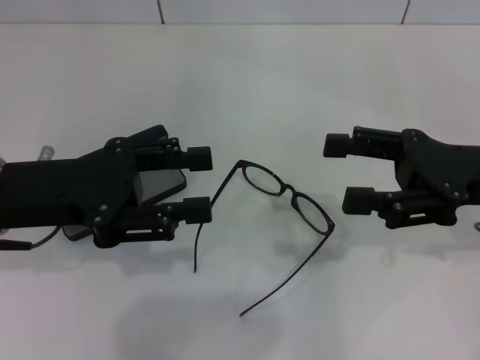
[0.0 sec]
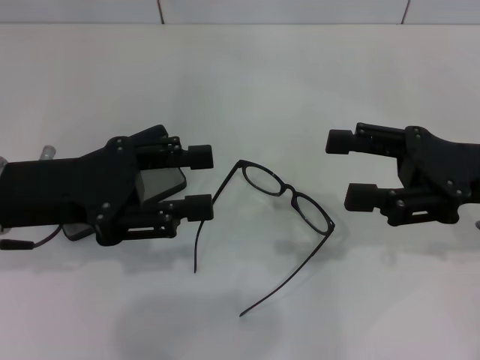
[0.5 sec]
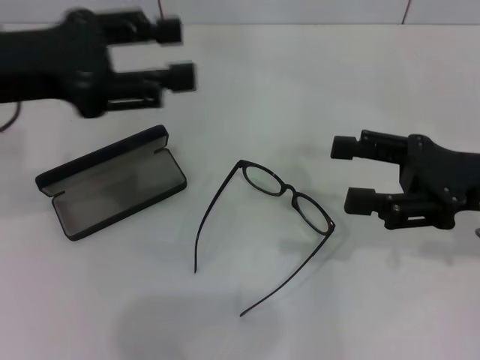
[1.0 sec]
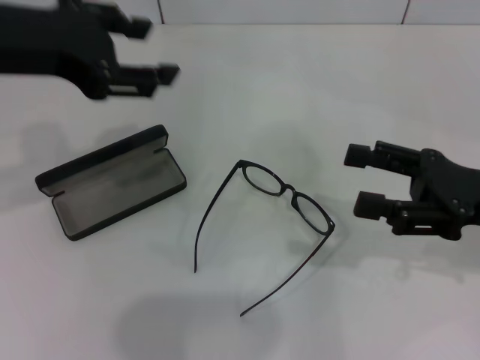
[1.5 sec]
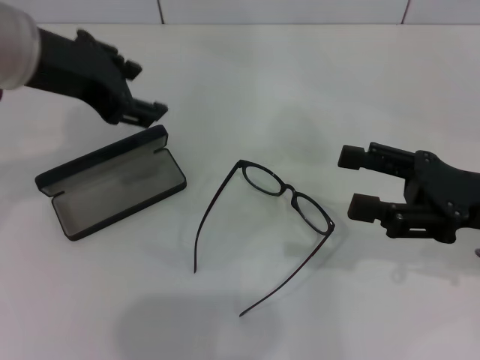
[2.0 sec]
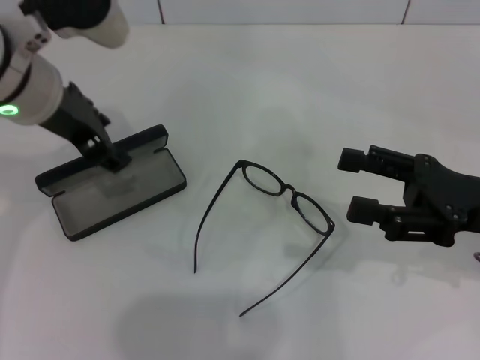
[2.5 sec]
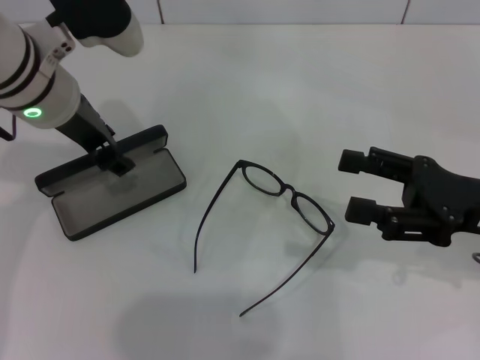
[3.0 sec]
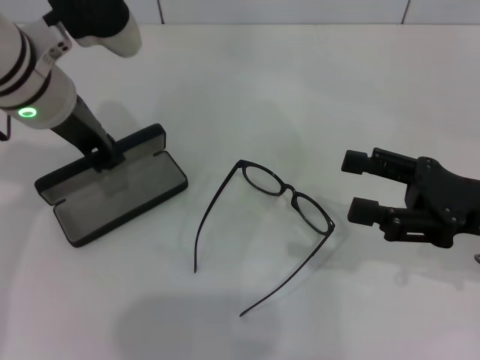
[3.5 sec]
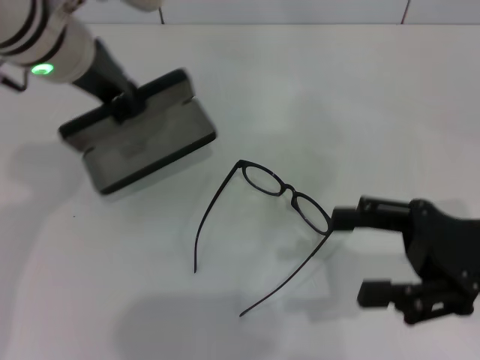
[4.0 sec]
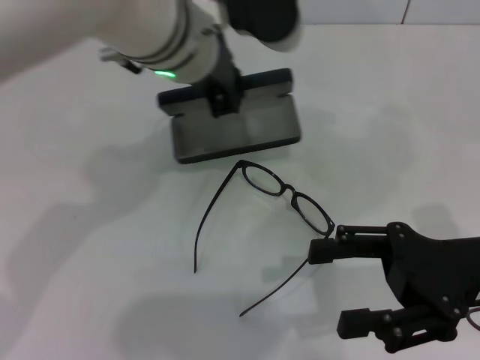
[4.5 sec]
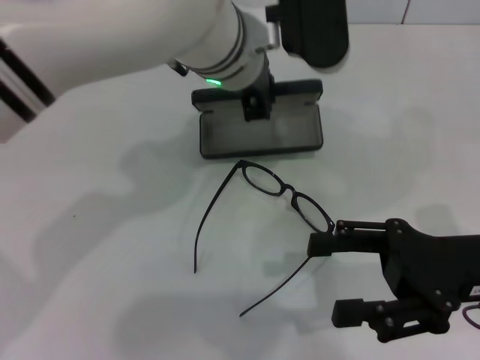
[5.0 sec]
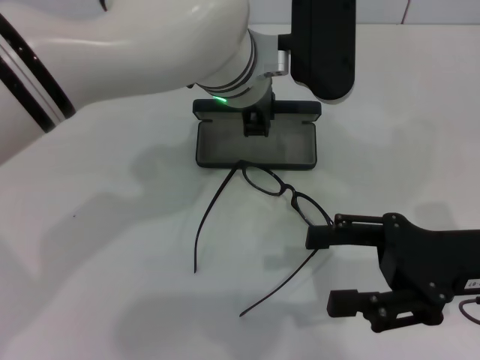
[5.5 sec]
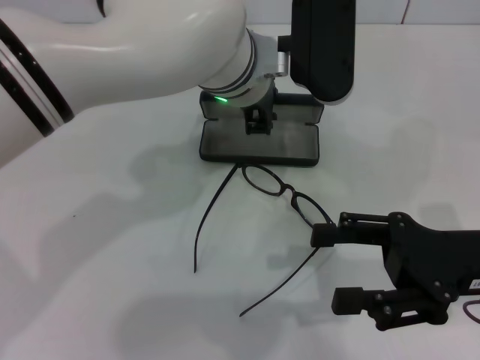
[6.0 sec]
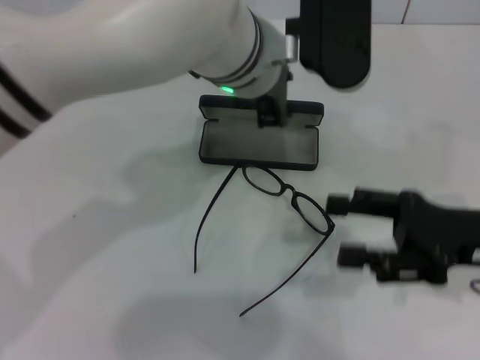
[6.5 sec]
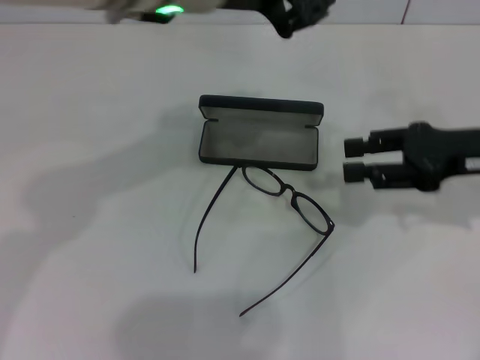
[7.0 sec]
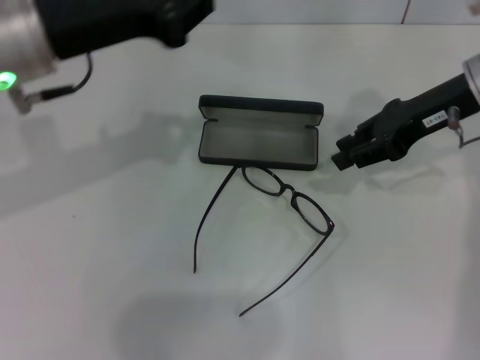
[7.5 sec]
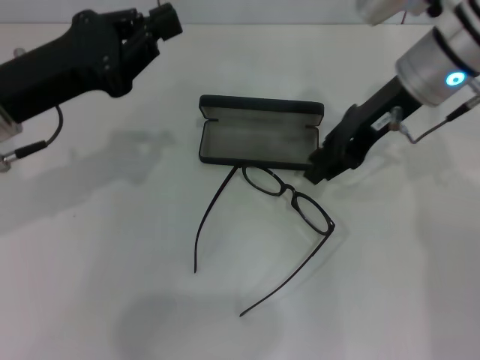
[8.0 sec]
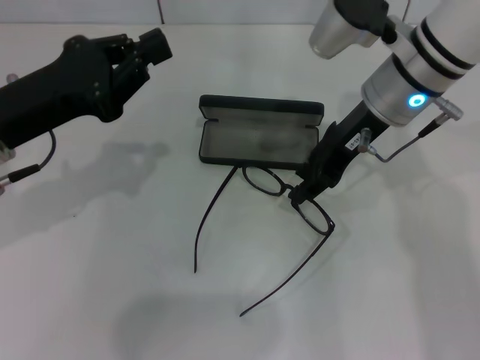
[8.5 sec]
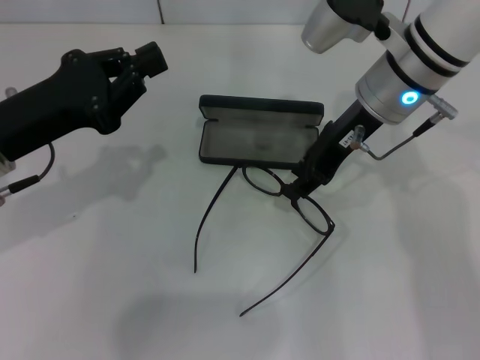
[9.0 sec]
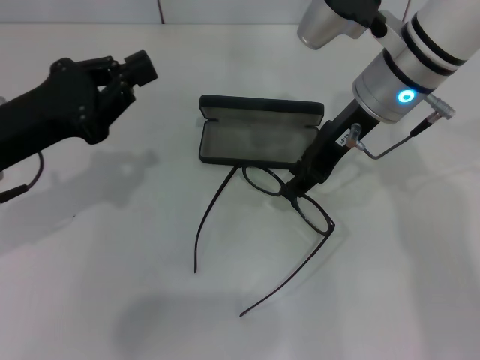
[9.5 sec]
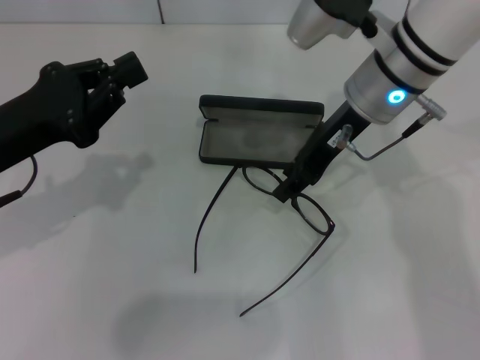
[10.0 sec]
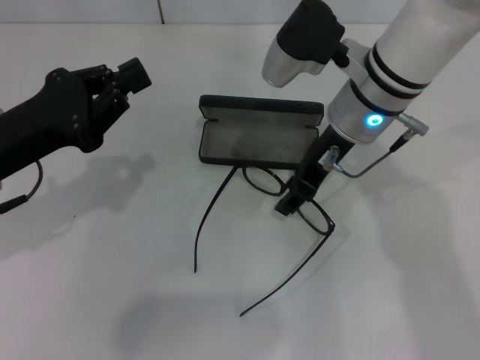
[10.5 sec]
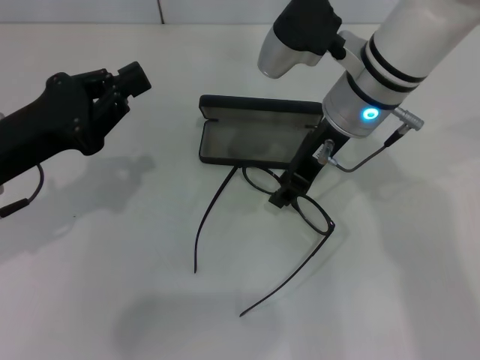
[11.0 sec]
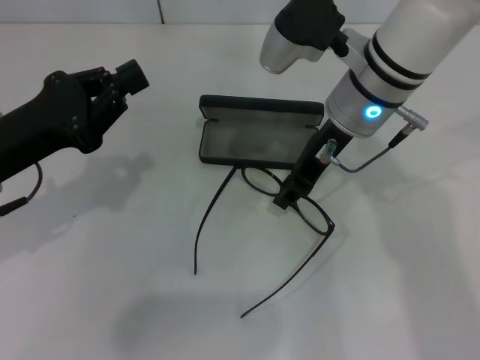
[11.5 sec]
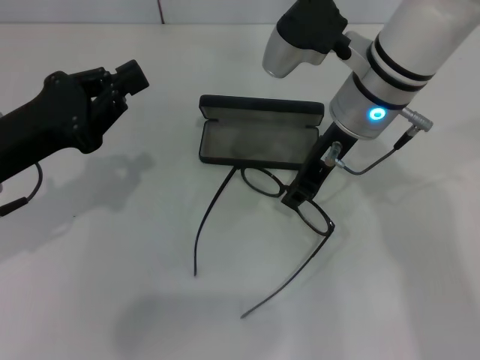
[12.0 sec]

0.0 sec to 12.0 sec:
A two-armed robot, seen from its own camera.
Step, 0.0 sec to 3.0 sec: Grab the glasses case with your left hand.
Step, 3.5 sec to 5.5 sec: Place the glasses case in the center of the table with your left hand.
0.0 sec to 2.0 sec: The left gripper is displaced upward, forward and to the right by some 15 cm.
2.0 sec to 4.0 sec: The left gripper changes place by roughly 5 cm, and closes its fingers.
4.0 sec to 6.0 sec: The left gripper travels to the right by approximately 15 cm.
6.0 sec to 8.0 sec: The left gripper is displaced to the left by about 20 cm, while the right gripper goes about 20 cm forward, to the left and upward, and closes.
8.0 sec to 10.0 sec: The left gripper changes place by some 5 cm.
10.0 sec to 12.0 sec: The grippers make only small movements.

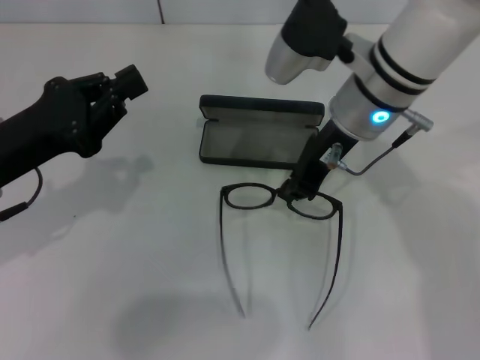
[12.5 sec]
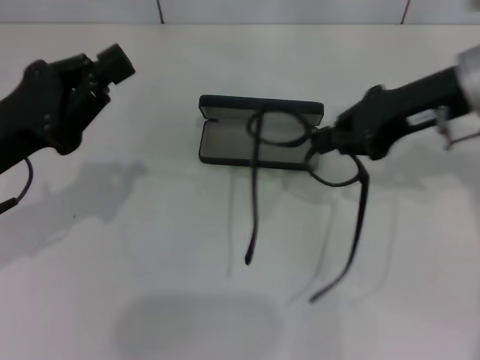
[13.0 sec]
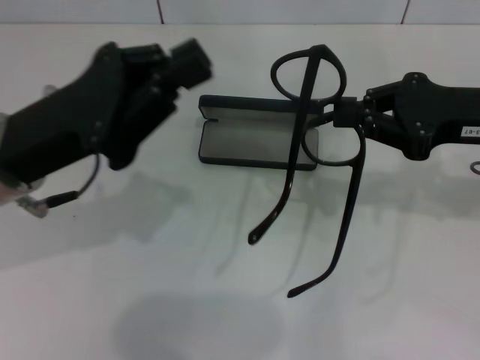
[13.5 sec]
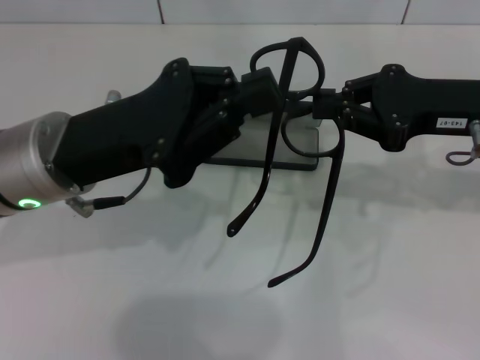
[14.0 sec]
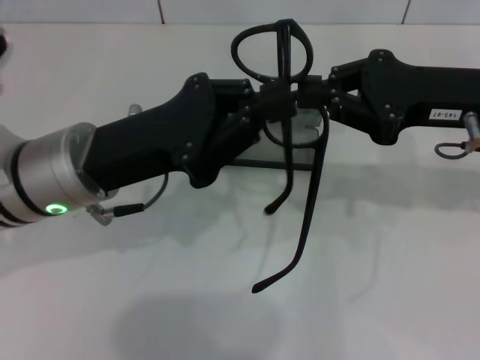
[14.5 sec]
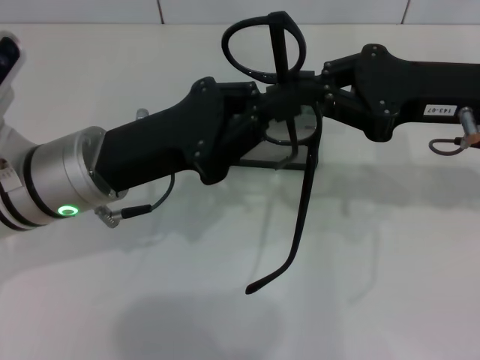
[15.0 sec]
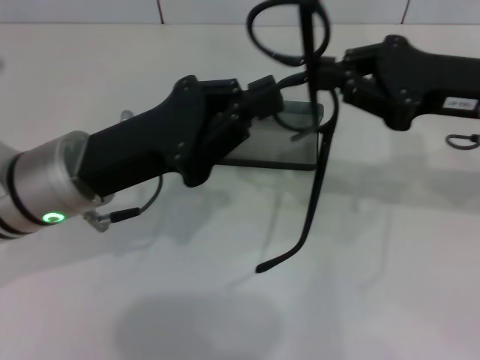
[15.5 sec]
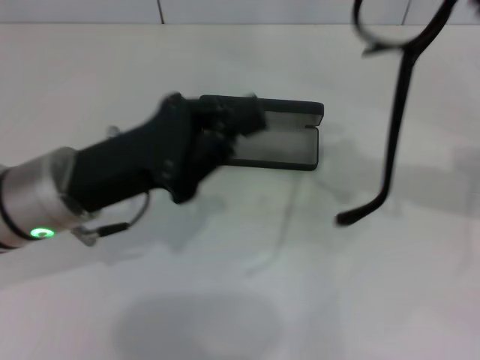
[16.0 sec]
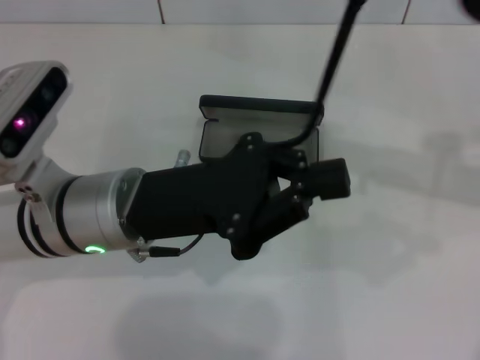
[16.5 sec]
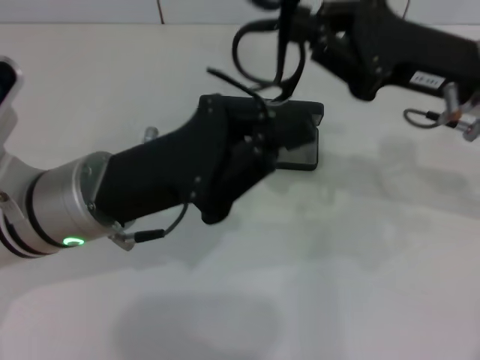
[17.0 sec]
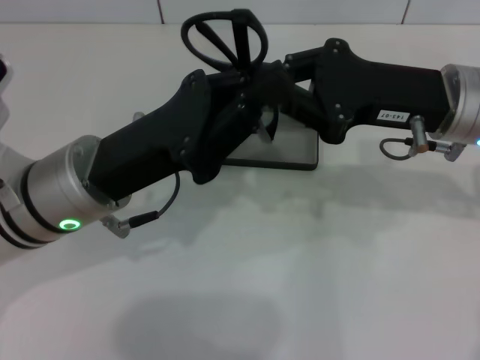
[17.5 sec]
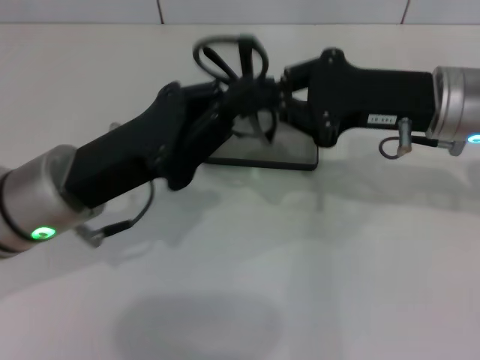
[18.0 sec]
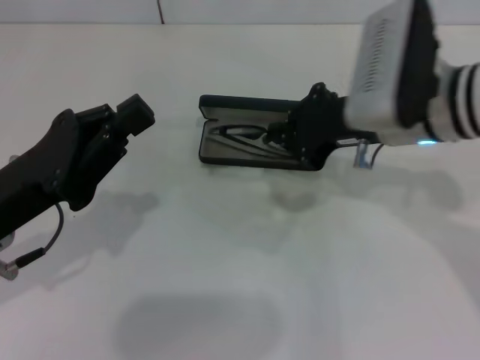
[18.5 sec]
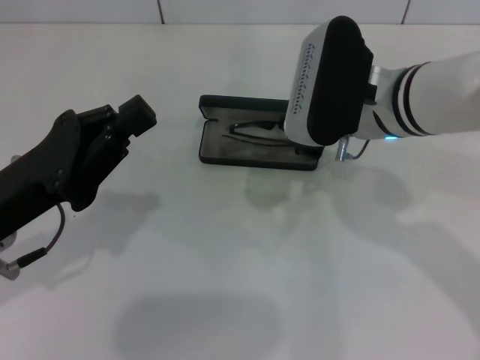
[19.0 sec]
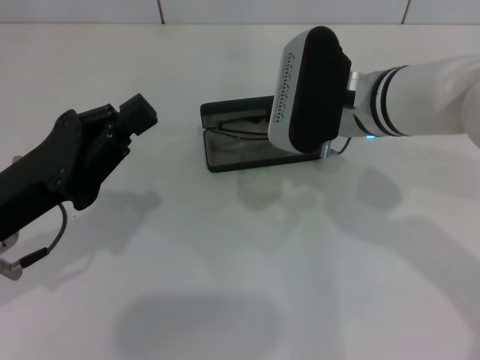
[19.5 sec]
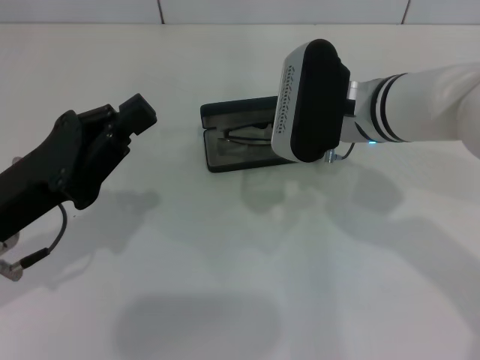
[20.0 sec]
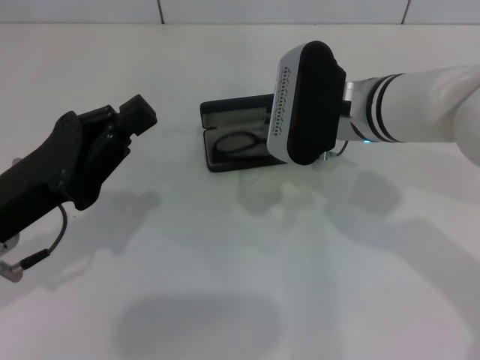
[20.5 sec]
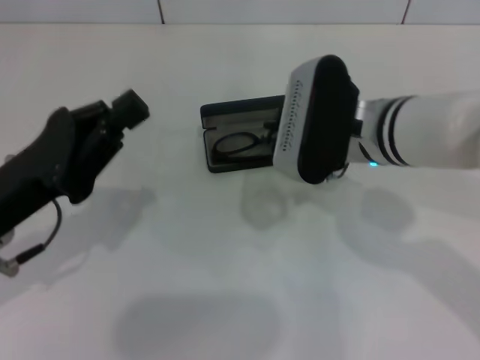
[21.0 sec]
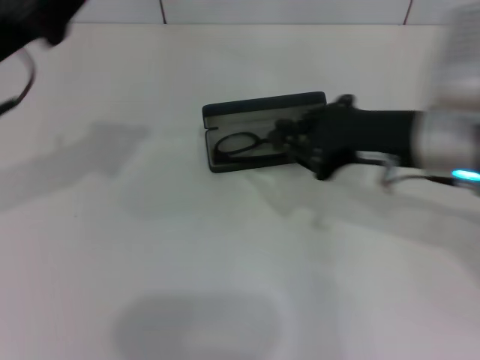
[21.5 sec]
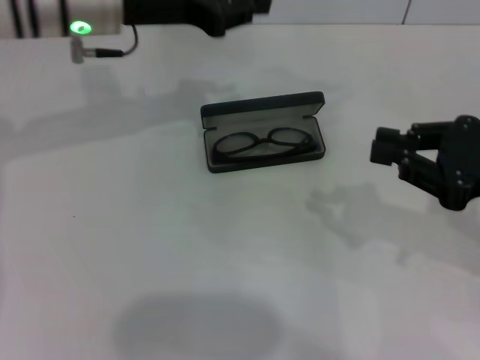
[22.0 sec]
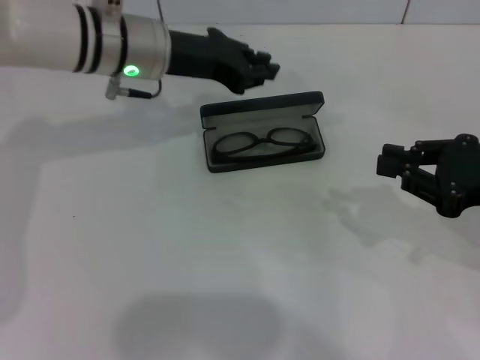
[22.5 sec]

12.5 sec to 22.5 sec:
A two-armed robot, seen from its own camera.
Step, 12.5 sec to 17.0 sec: Fold the frame with your left hand.
Step, 17.5 sec to 20.5 sec: Put the glasses into the case with your right hand.
12.5 sec to 14.5 sec: Both grippers move to the right, approximately 10 cm.
16.5 sec to 18.5 sec: Both grippers travel together to the left, approximately 10 cm.
18.5 sec to 20.5 sec: The right gripper goes approximately 5 cm to the left.
20.5 sec to 22.5 sec: The left gripper is displaced forward and to the right by roughly 20 cm. Meanwhile the right gripper shifts about 20 cm to the right and backward.

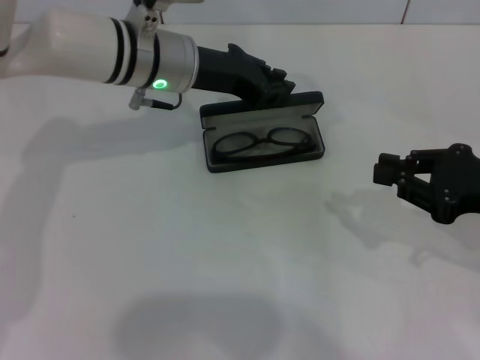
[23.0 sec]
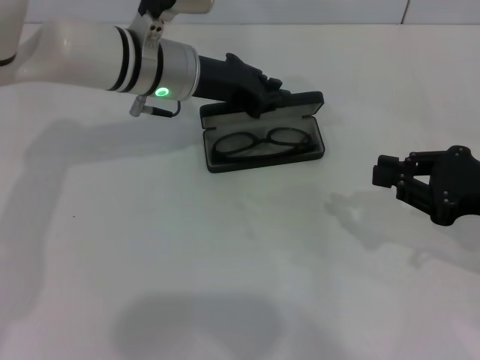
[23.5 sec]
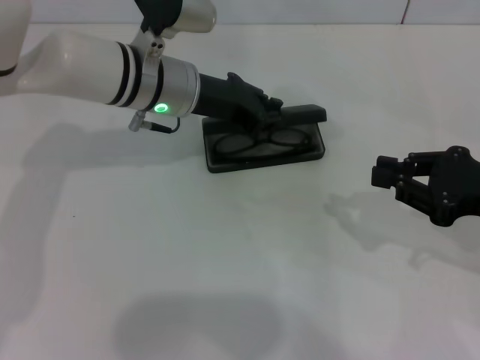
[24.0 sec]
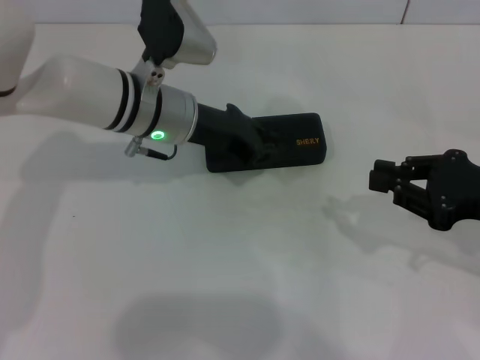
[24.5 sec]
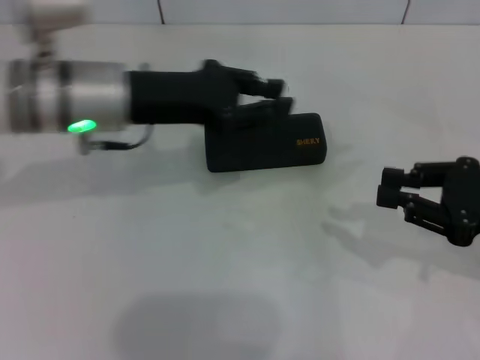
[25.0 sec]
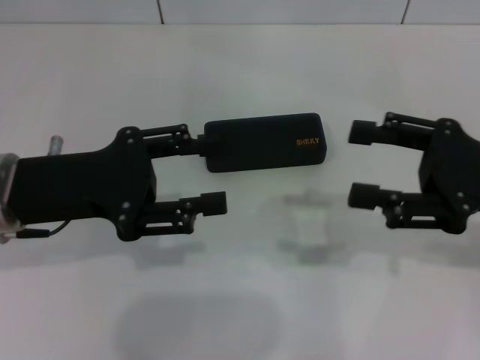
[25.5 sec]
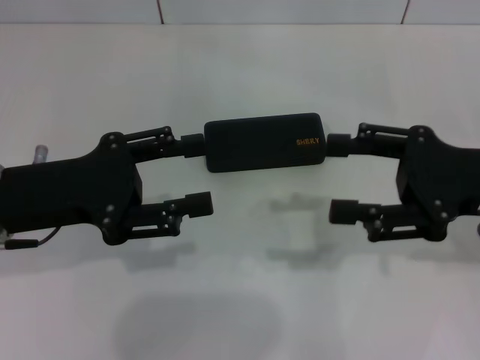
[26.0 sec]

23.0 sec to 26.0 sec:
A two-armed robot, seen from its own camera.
23.0 sec to 24.5 sec: The grippers make only small movements.
24.5 sec to 26.0 sec: The left gripper is displaced backward and to the left by roughly 20 cm, and opens its fingers. The right gripper opens.
